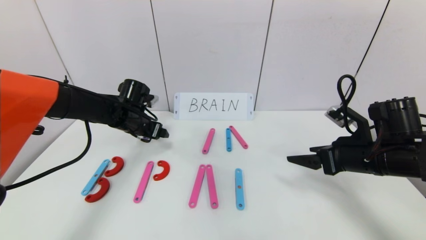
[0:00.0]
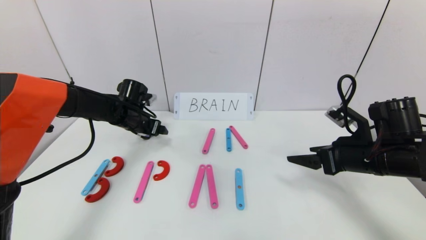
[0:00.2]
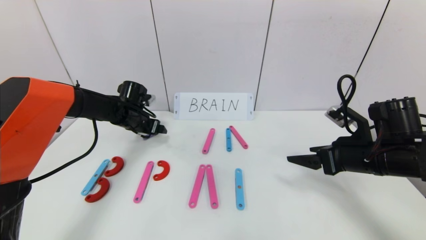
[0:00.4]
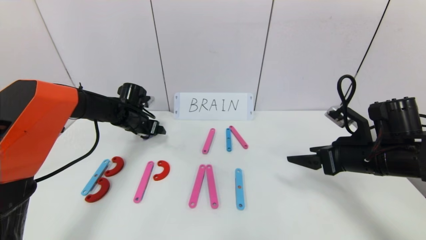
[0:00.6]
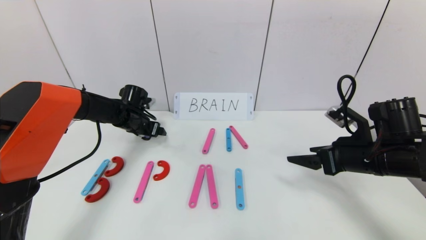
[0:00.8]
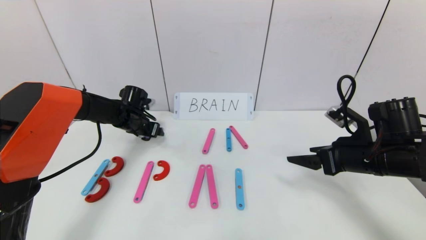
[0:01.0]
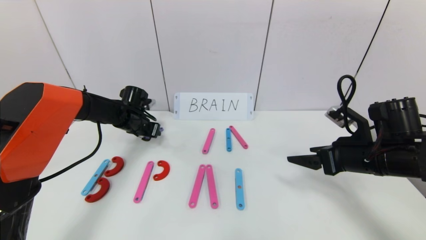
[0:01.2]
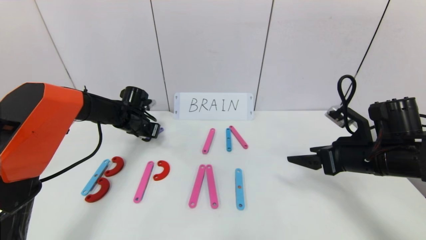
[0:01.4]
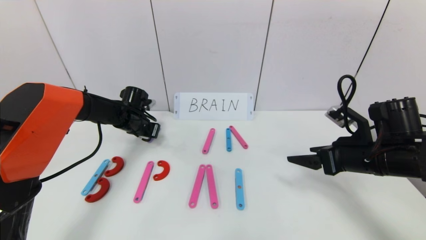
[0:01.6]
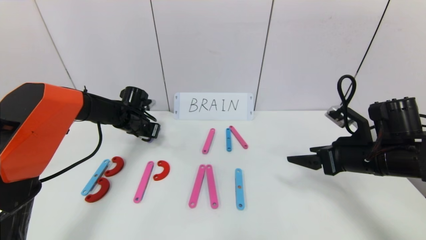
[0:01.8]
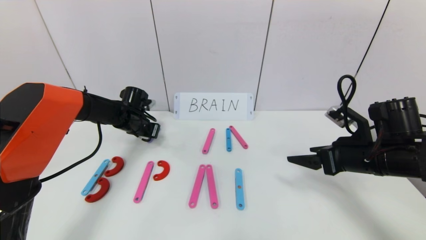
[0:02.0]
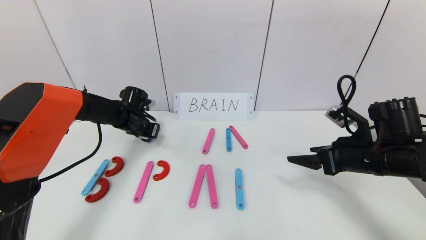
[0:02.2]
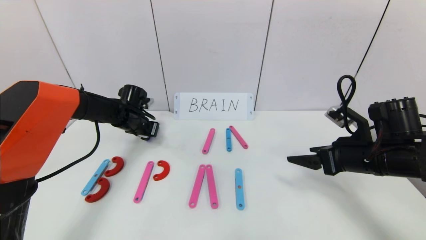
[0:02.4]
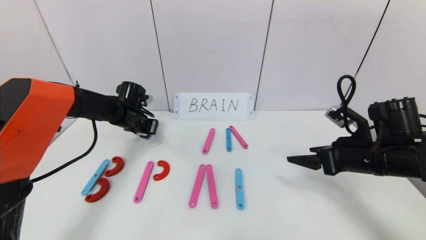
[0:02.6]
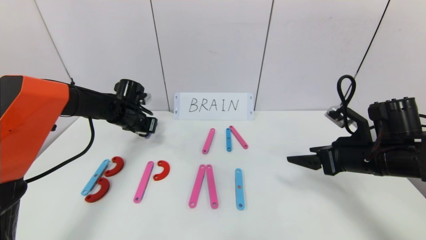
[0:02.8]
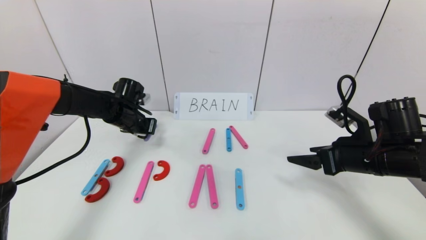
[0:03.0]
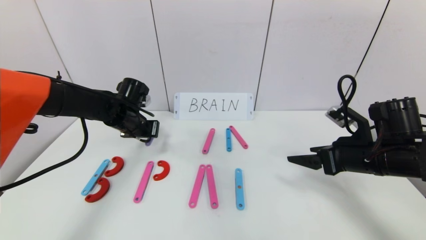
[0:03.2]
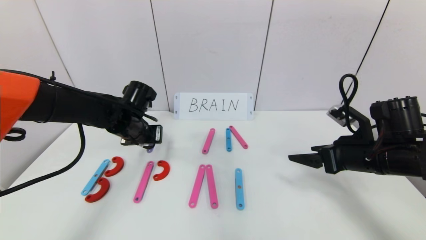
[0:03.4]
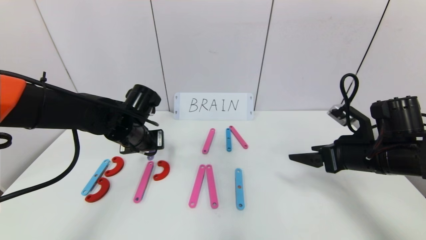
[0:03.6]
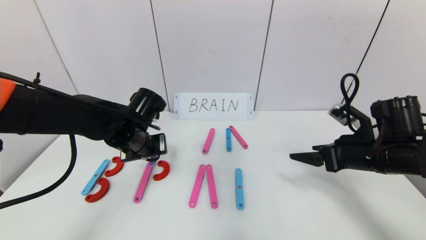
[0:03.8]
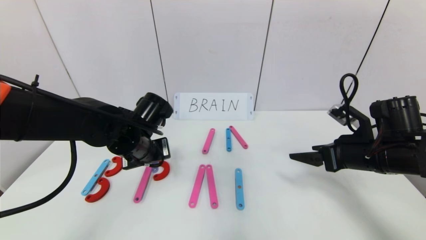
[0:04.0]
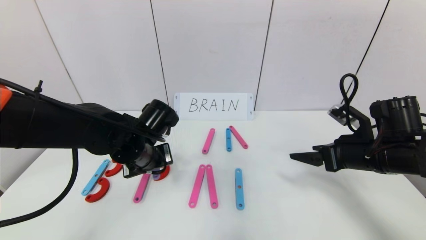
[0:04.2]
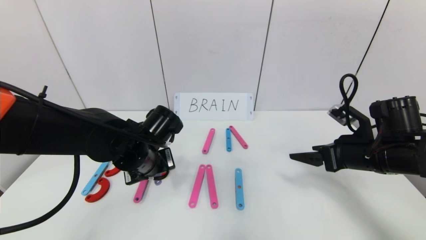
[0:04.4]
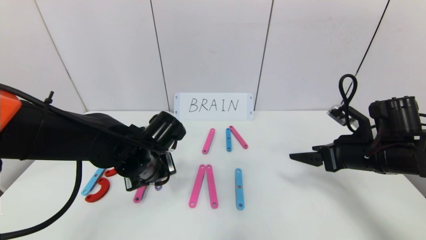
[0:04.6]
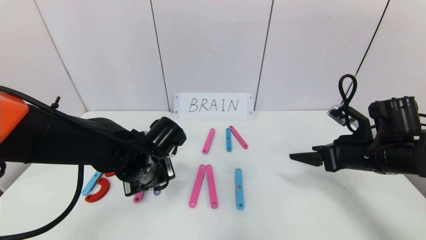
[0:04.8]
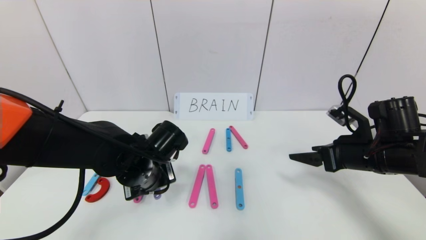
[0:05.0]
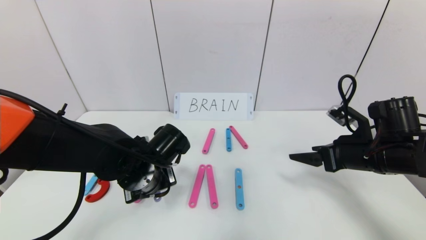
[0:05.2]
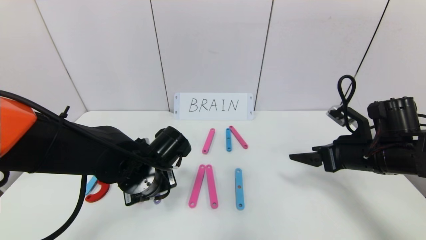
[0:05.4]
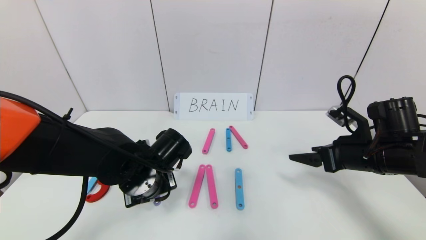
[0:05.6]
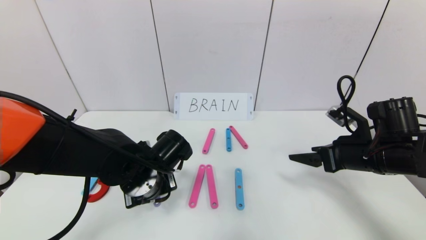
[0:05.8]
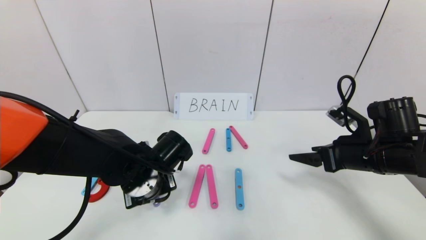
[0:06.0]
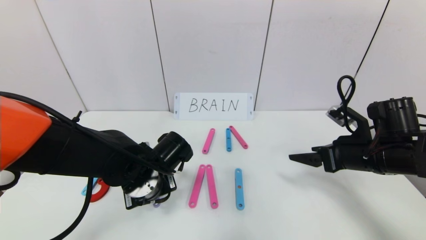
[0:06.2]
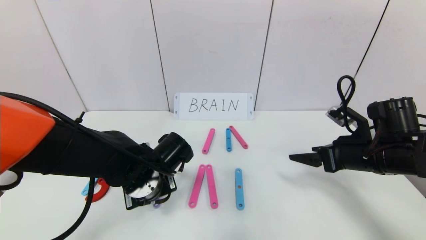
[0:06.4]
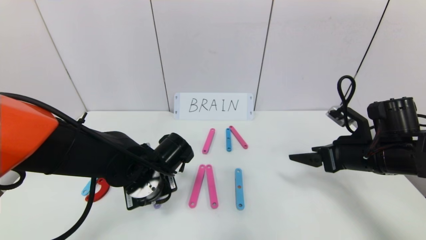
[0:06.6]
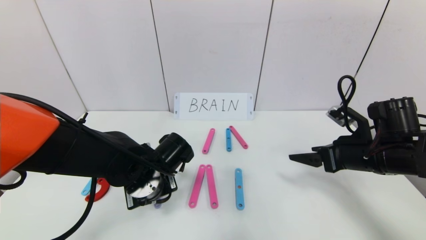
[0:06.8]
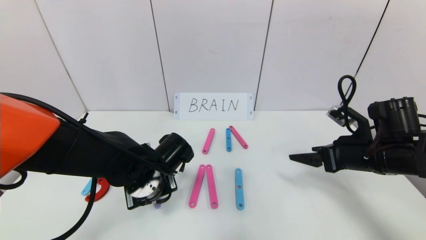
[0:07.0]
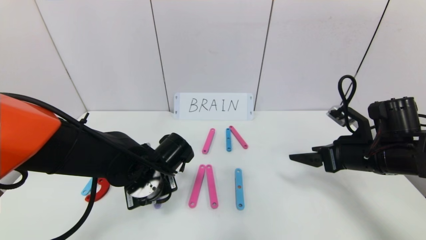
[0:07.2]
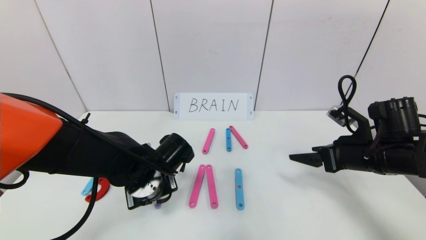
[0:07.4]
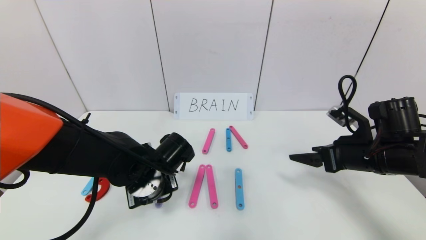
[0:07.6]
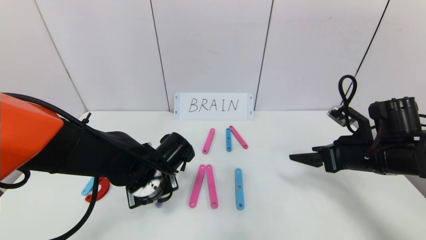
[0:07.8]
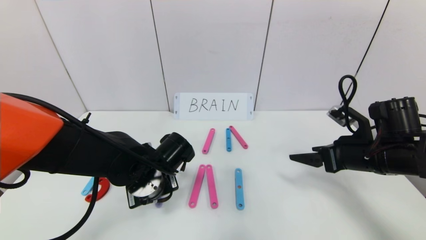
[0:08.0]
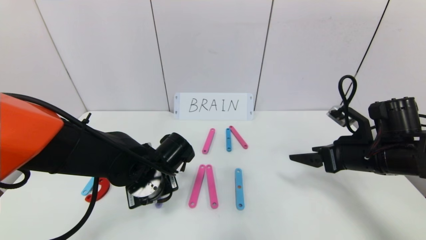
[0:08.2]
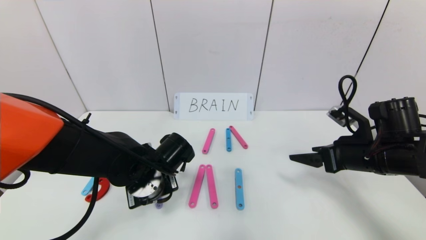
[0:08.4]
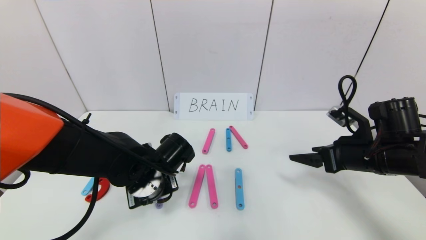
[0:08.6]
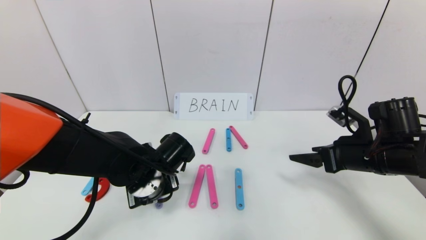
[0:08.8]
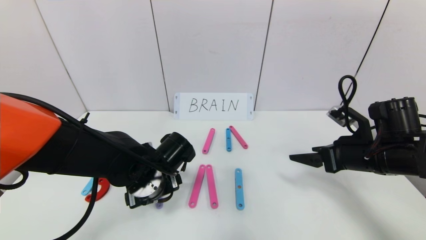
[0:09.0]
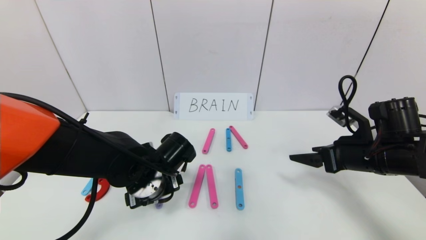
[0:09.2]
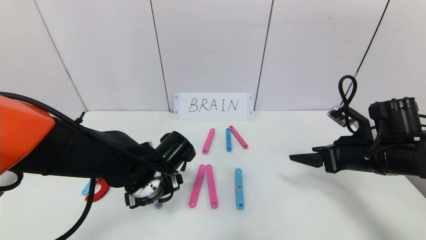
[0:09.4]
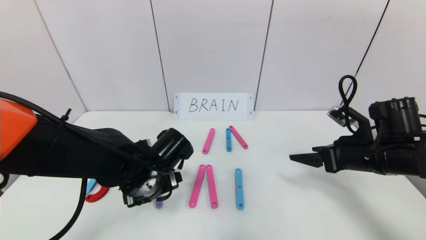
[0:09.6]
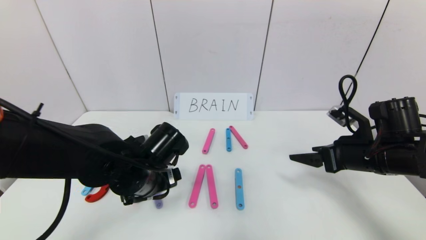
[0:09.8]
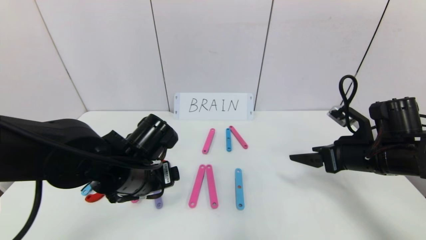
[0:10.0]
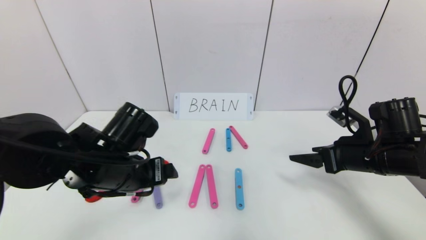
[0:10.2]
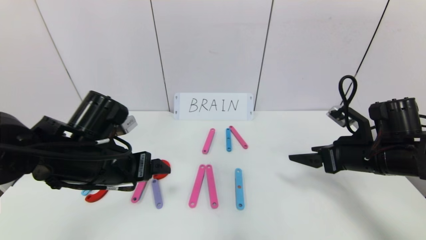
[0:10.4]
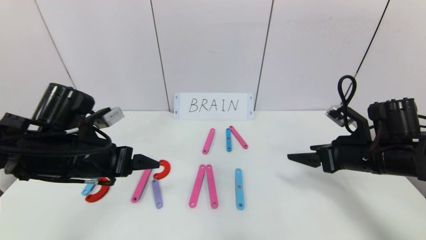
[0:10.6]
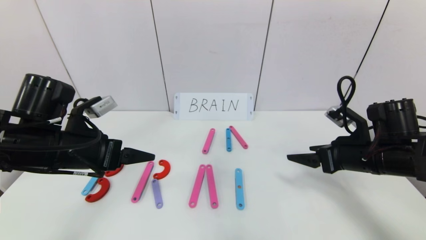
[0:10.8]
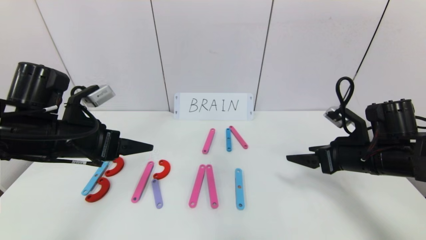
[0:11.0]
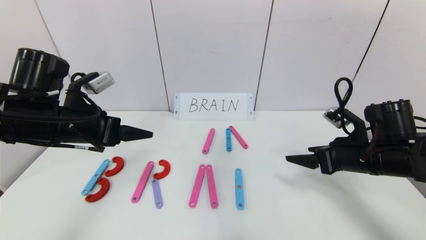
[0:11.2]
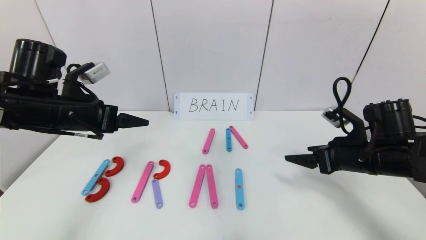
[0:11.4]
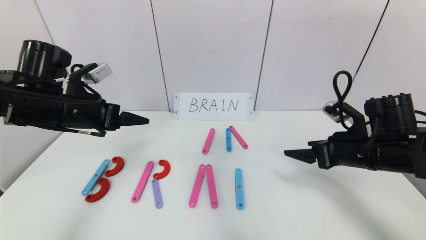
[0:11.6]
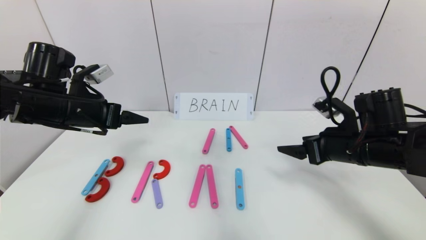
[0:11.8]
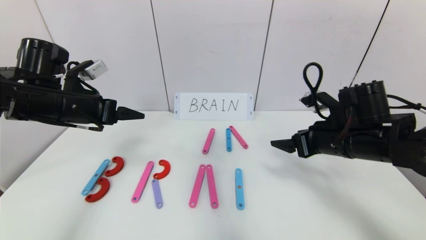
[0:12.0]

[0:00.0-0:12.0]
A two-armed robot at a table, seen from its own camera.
Task of the whole recording: rearrange the word baai as brain.
Step, 0:00.0 to 0:08.4: Place the character R between first character B and third character A.
0:00.0 to 0:01.6: The left gripper moves about 5 cm, and closes up.
0:01.6 to 0:03.0: The left gripper ends up roughly 5 cm from where it was.
0:03.0 to 0:04.4: The left gripper is displaced backward and to the right by roughly 20 cm.
0:04.4 to 0:06.0: The grippers make only small movements.
0:06.0 to 0:07.6: The two grippers keep their place.
0:07.6 to 0:09.0: The left gripper opens up.
0:09.0 to 0:10.4: The left gripper moves upward and to the left, roughly 10 cm.
0:10.4 to 0:12.0: The left gripper moves to the left, forward and upward, some 10 cm. Meanwhile the right gripper heads to the left, covering roughly 5 cm.

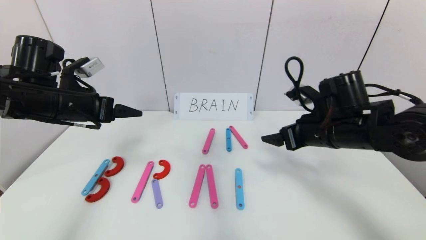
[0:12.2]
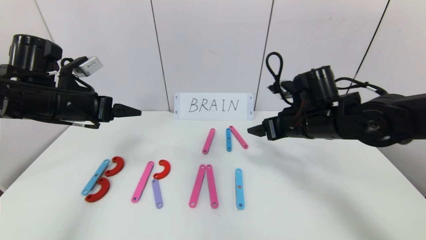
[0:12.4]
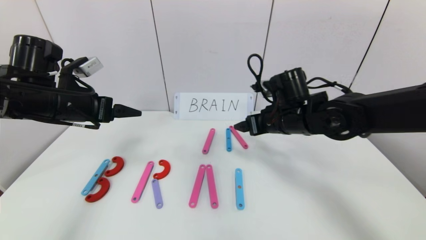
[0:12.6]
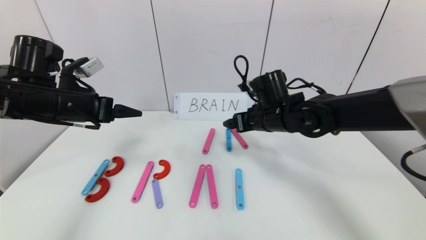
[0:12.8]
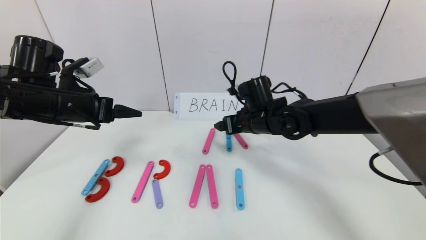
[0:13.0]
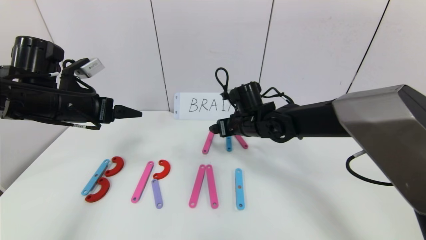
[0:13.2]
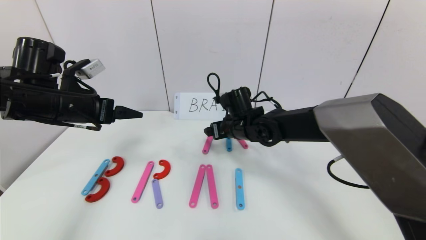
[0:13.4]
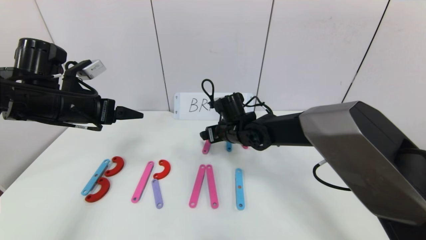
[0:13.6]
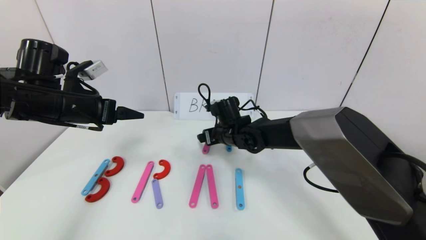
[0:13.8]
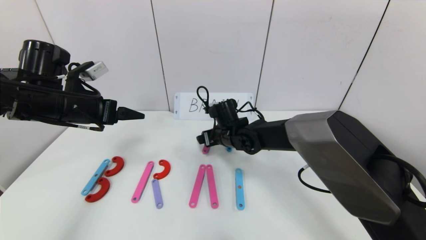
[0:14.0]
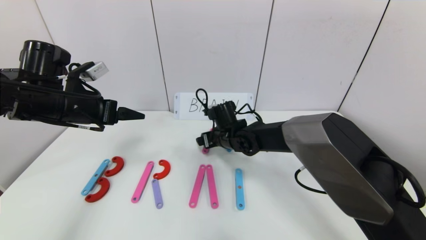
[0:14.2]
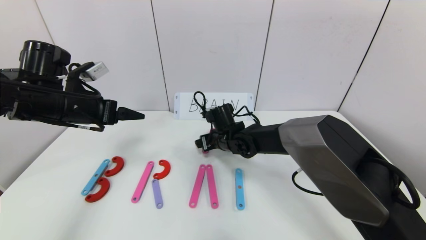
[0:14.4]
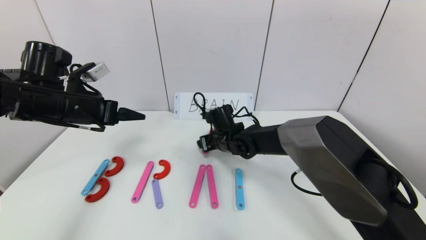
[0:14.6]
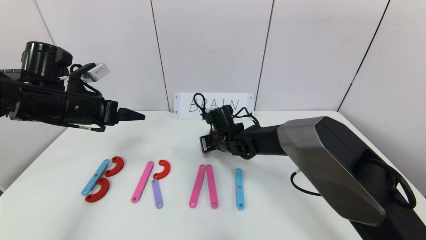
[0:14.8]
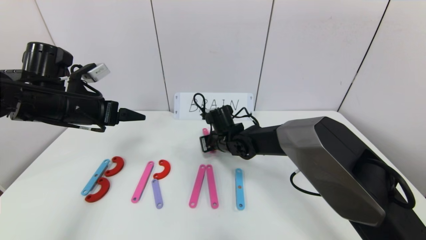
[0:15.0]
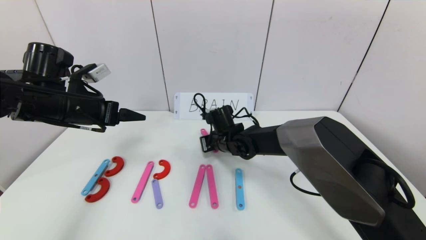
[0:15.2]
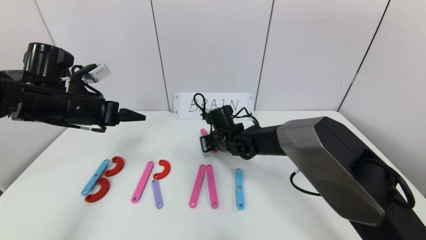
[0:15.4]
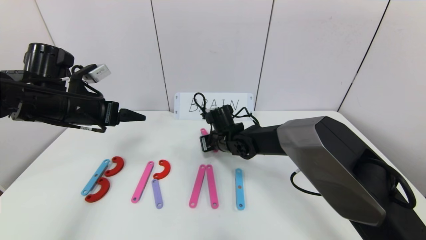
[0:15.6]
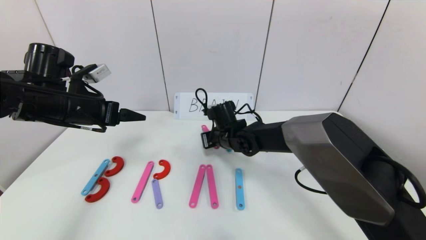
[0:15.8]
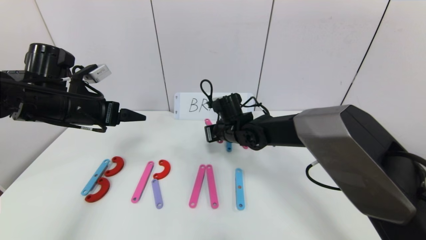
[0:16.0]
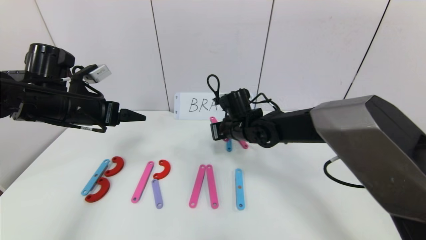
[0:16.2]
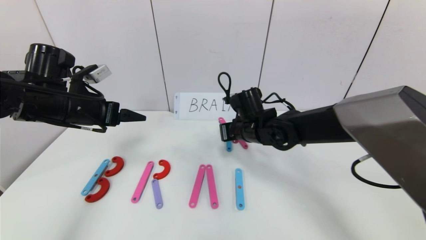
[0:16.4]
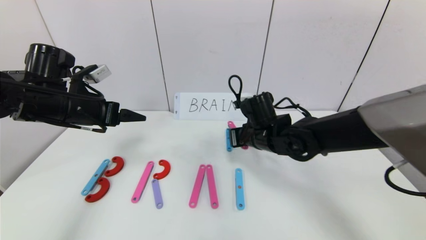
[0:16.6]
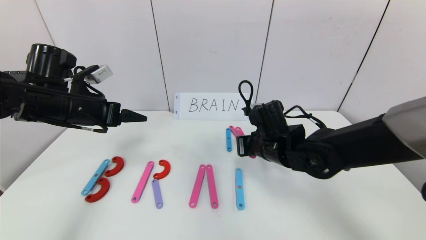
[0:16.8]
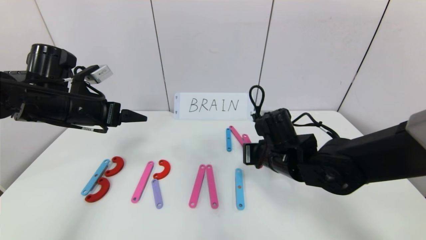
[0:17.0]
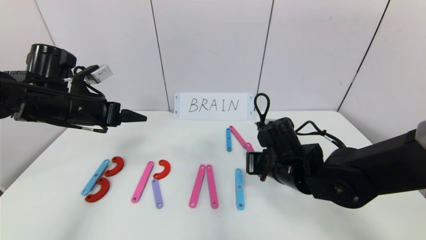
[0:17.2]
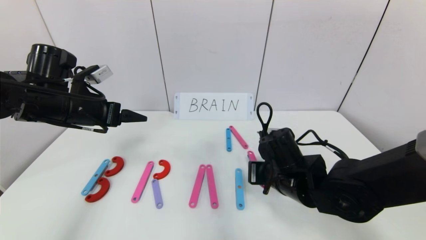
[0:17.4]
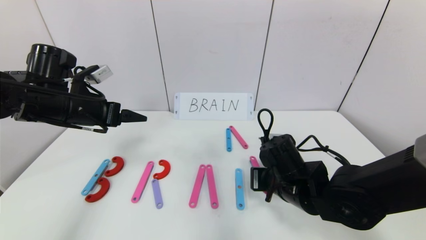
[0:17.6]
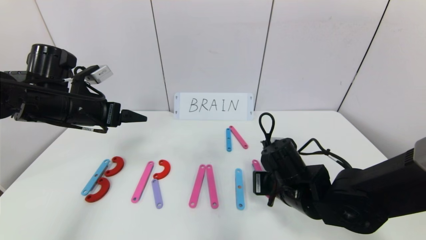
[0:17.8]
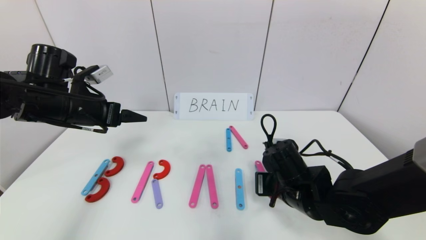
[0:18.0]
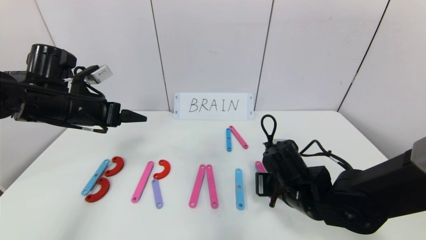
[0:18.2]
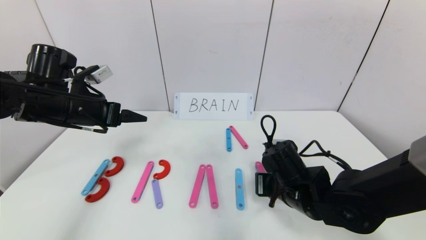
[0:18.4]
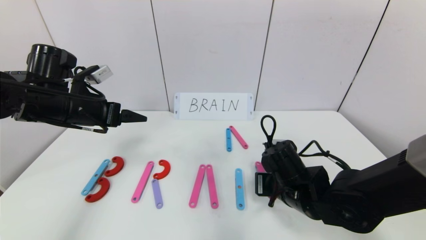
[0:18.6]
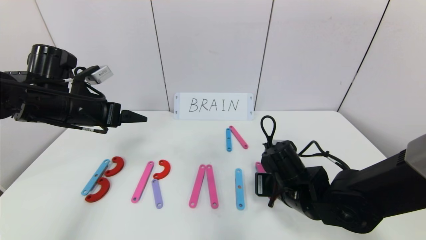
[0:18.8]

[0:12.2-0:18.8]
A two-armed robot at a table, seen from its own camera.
Task of the whole recording: rearrange the word baai as brain.
0:12.2 to 0:13.8: The right gripper is displaced to the left, forward and downward by roughly 25 cm.
0:13.8 to 0:15.4: The right gripper closes up.
0:15.4 to 0:17.2: The right gripper goes about 20 cm backward and to the right.
0:17.2 to 0:18.8: The grippers make only small movements.
